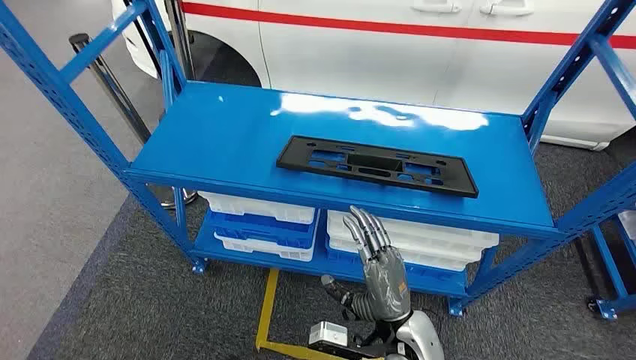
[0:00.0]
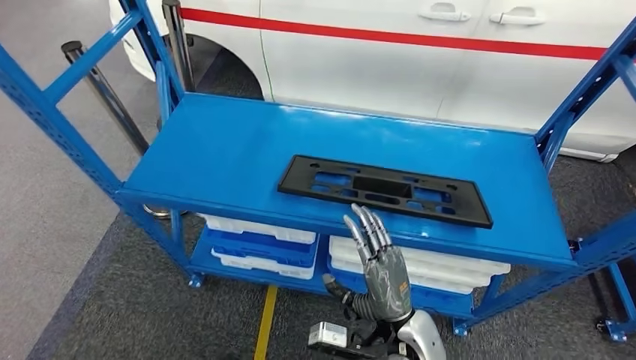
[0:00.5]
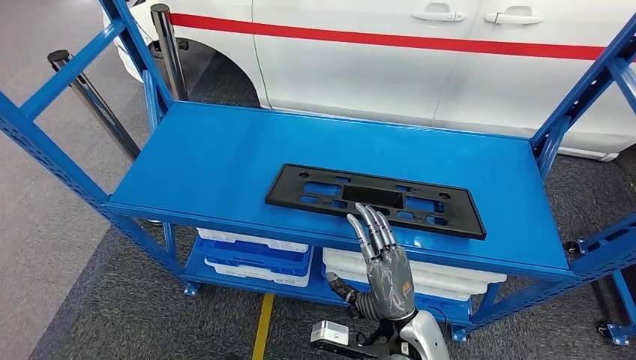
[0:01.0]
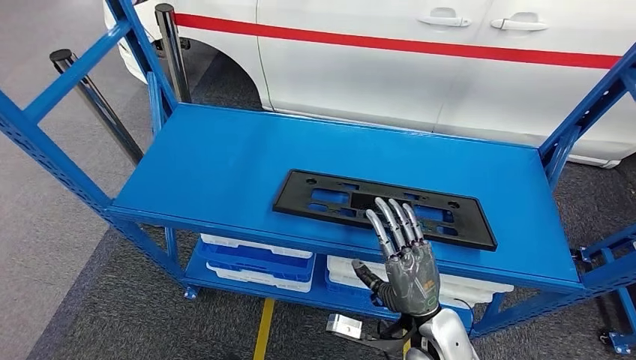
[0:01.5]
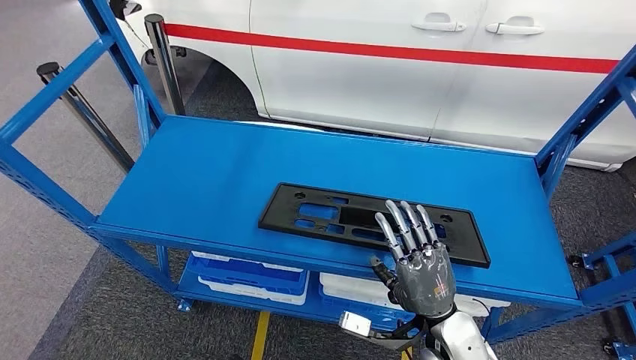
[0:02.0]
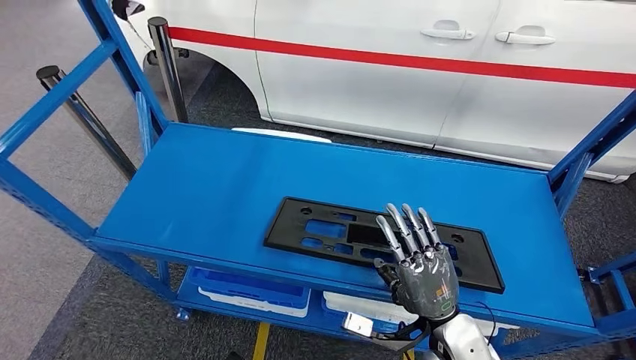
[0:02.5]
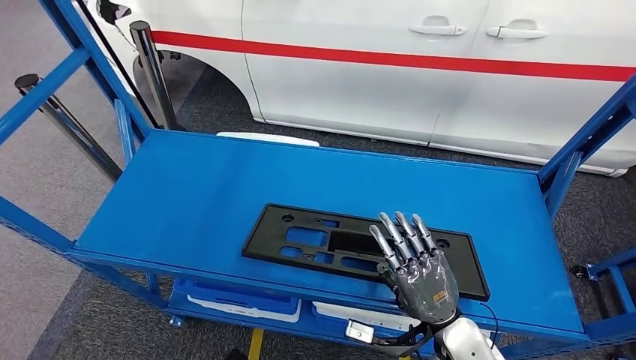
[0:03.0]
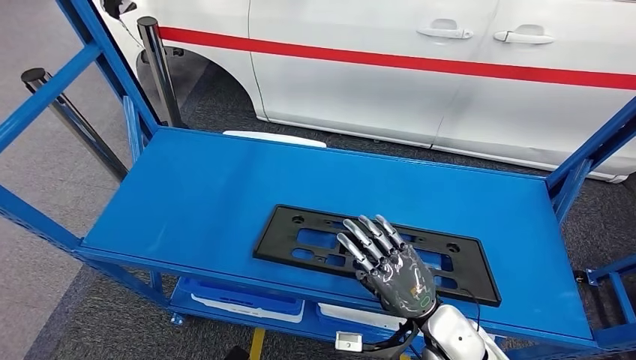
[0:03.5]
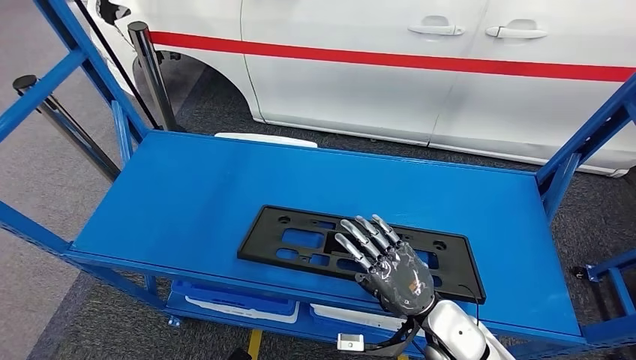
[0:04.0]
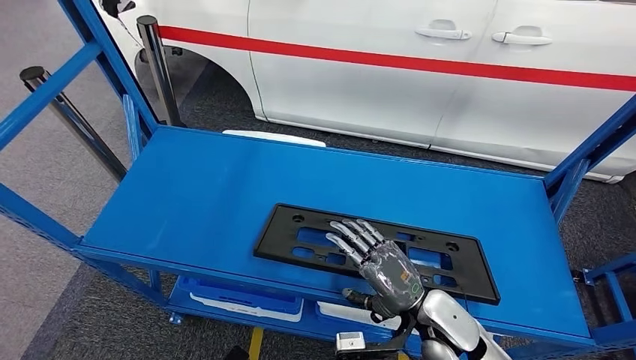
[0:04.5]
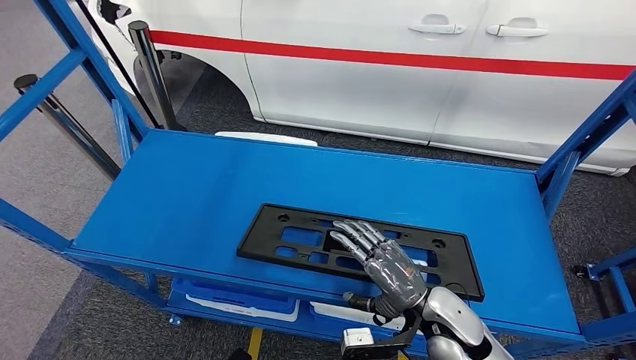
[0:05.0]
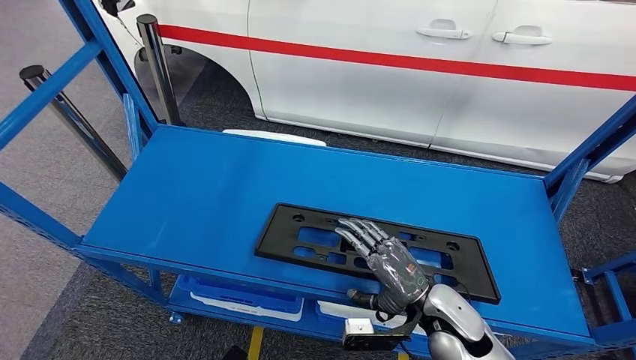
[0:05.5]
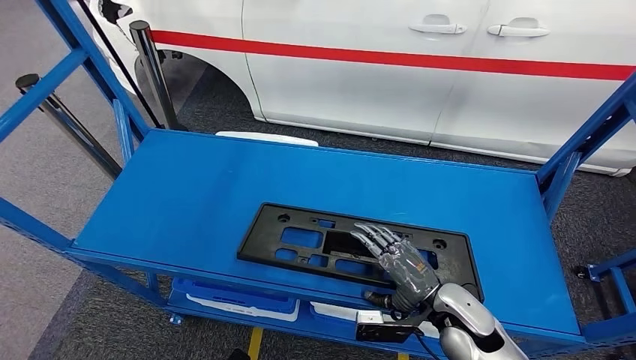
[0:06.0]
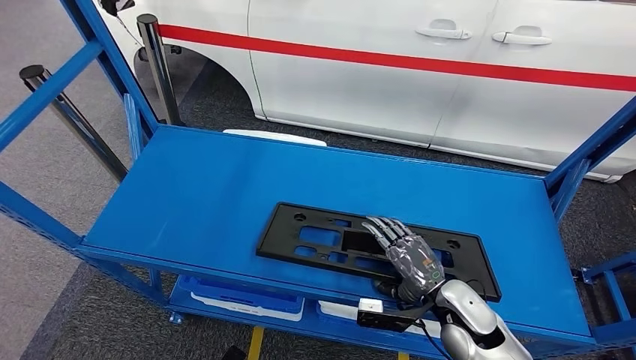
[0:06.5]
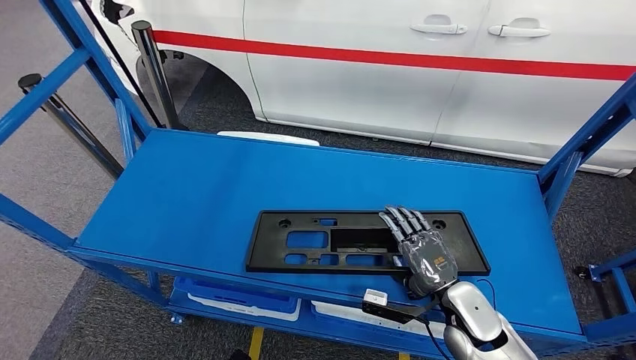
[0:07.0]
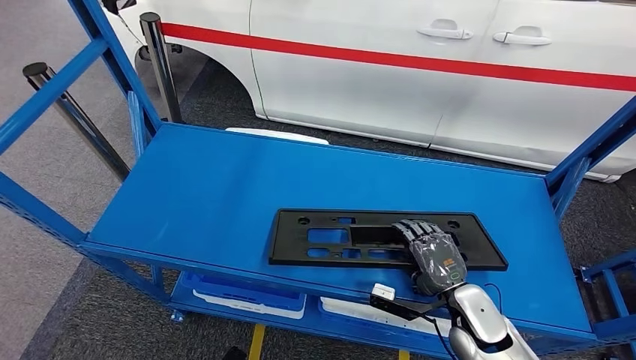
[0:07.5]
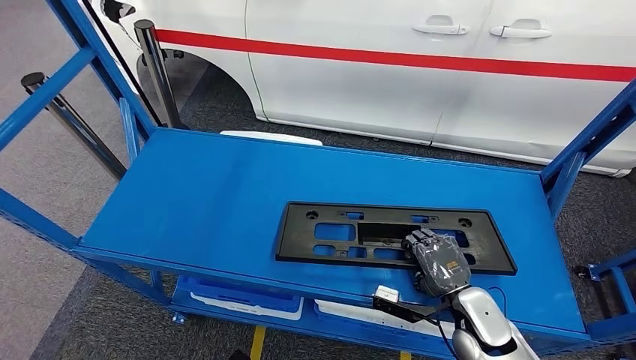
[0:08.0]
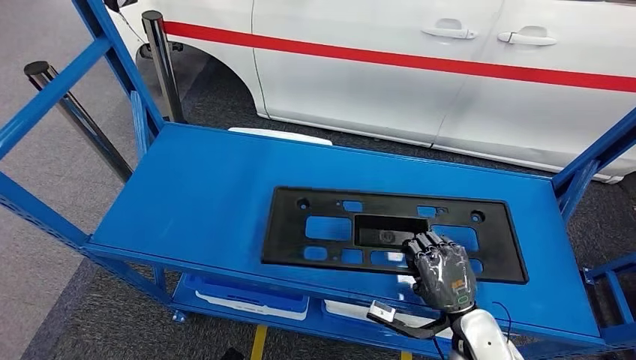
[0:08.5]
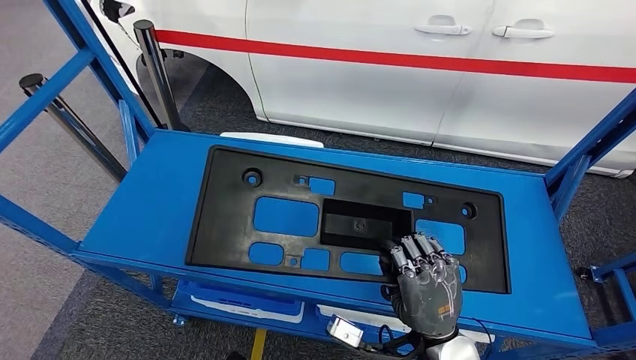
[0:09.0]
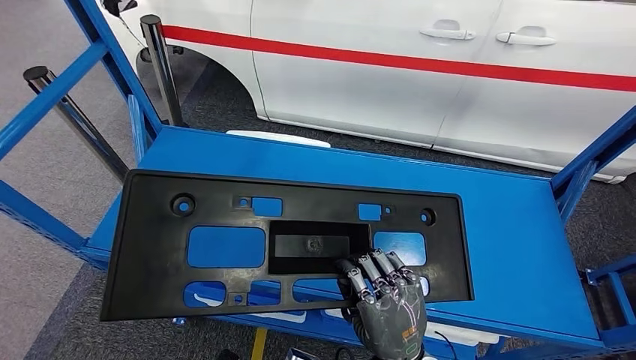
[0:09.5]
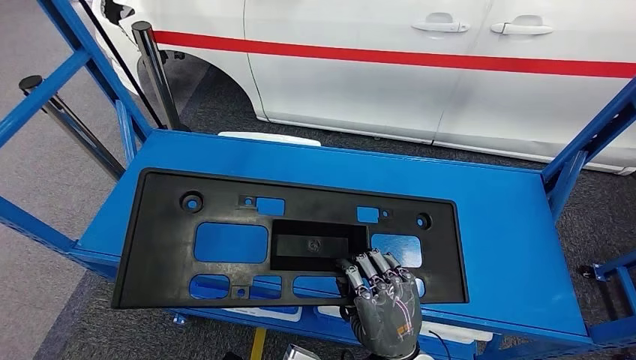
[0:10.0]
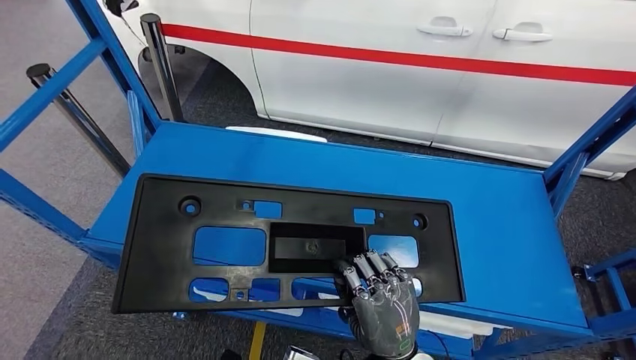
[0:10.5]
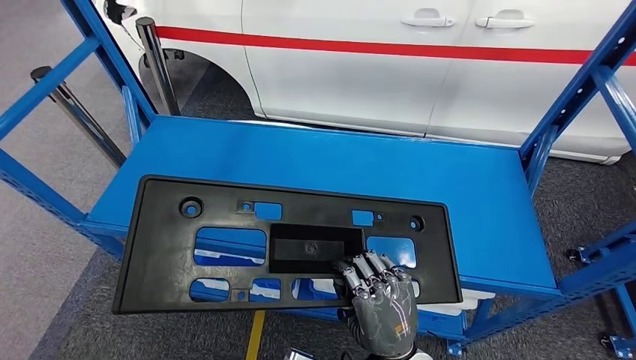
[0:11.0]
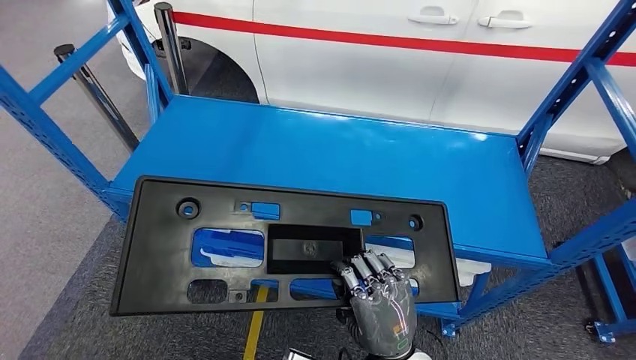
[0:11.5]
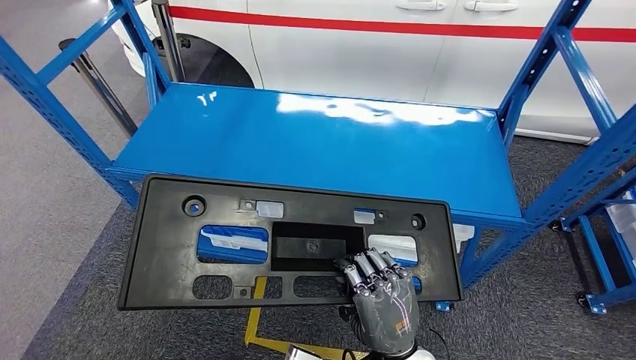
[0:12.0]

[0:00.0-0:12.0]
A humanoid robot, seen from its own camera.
0:06.0 to 0:08.0: The right hand is displaced to the right by roughly 5 cm.

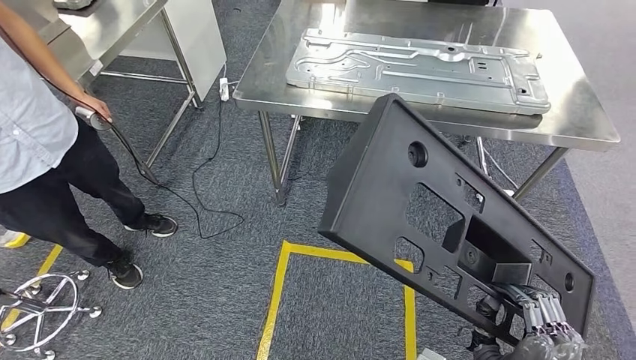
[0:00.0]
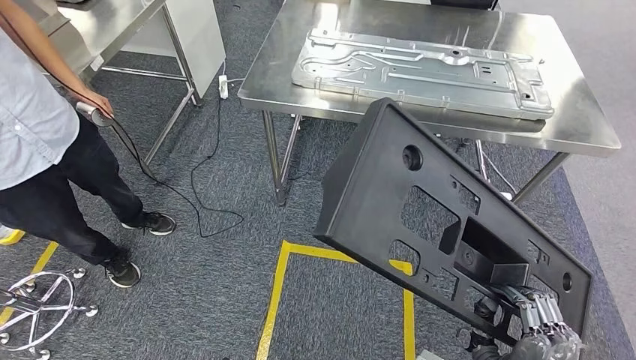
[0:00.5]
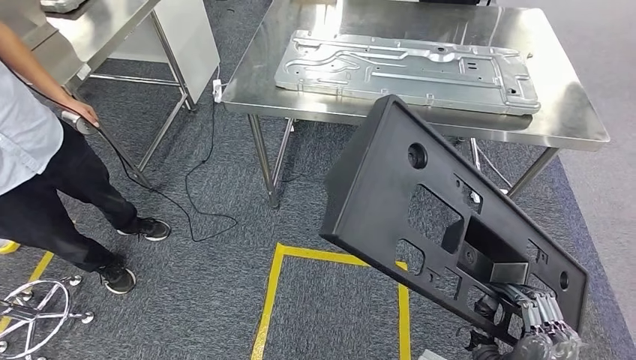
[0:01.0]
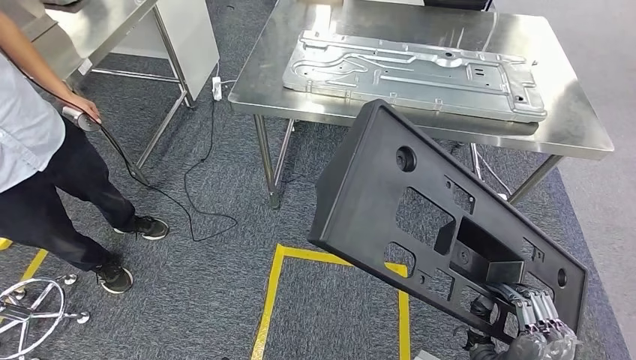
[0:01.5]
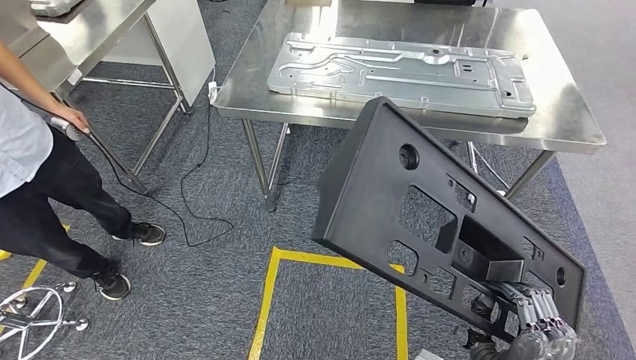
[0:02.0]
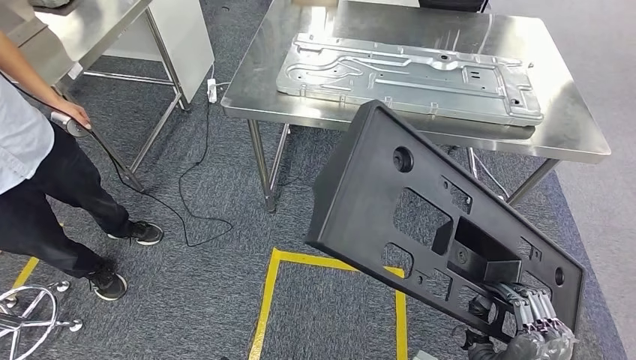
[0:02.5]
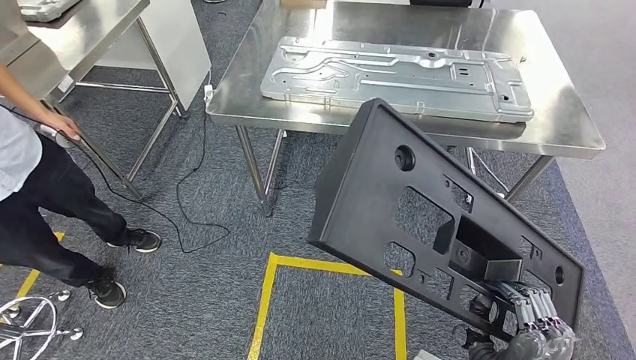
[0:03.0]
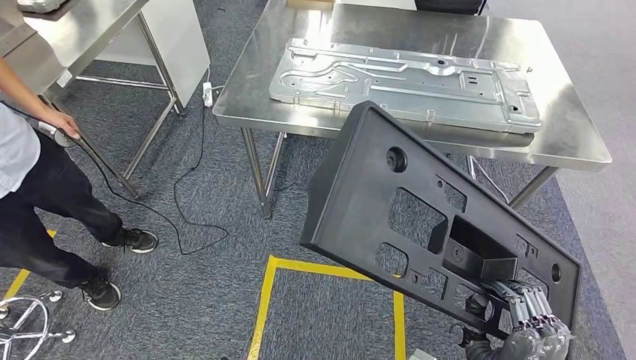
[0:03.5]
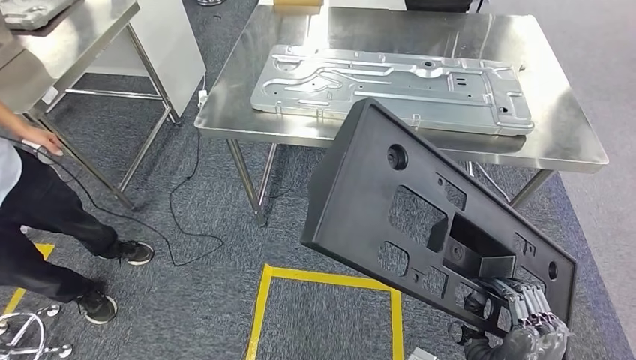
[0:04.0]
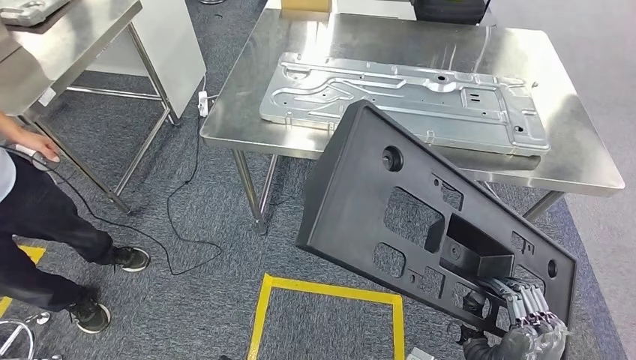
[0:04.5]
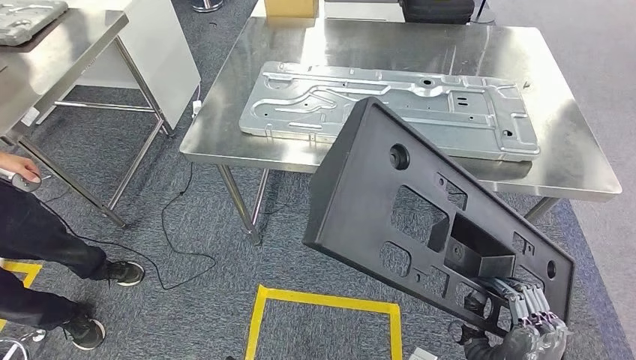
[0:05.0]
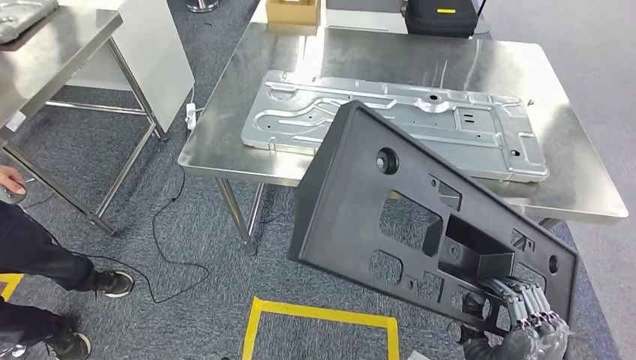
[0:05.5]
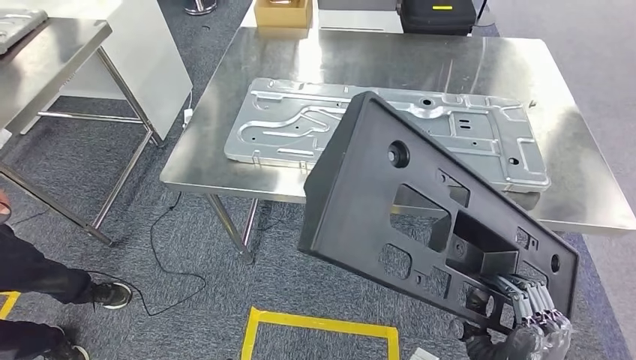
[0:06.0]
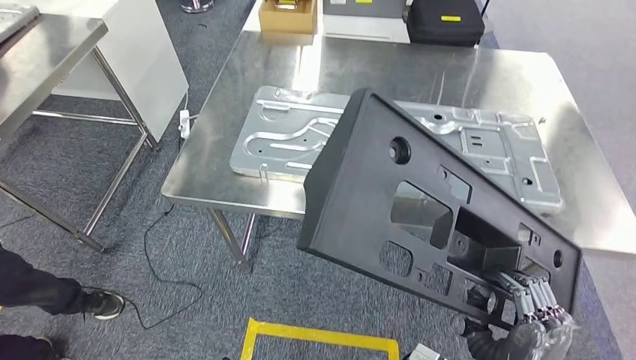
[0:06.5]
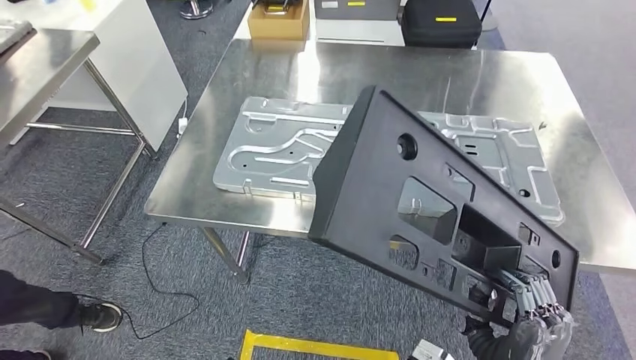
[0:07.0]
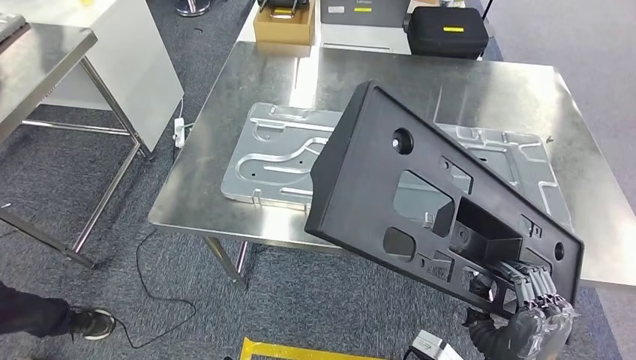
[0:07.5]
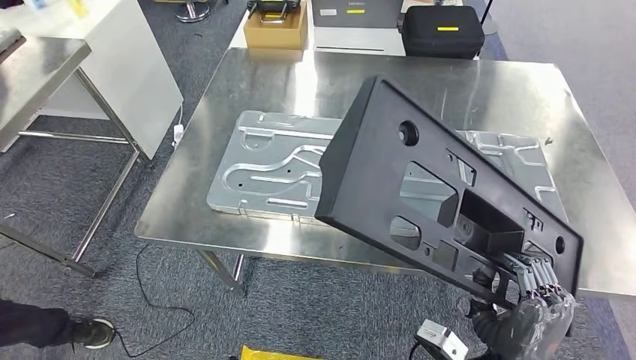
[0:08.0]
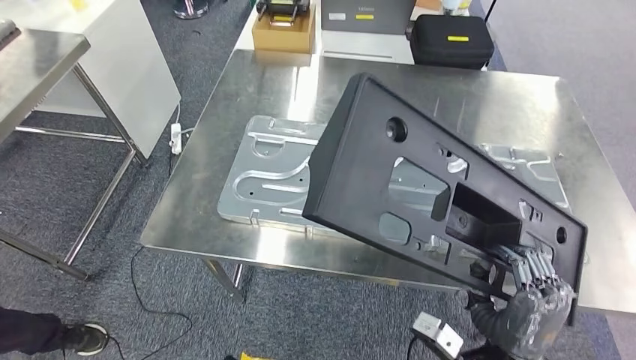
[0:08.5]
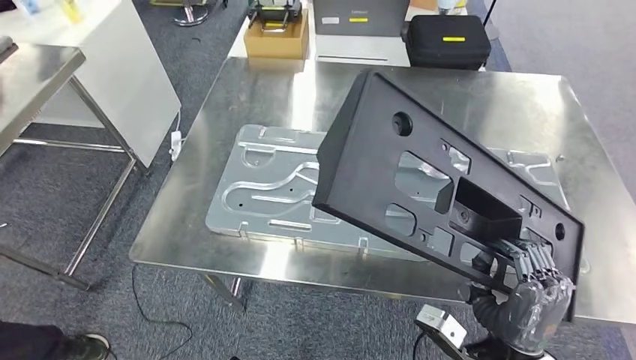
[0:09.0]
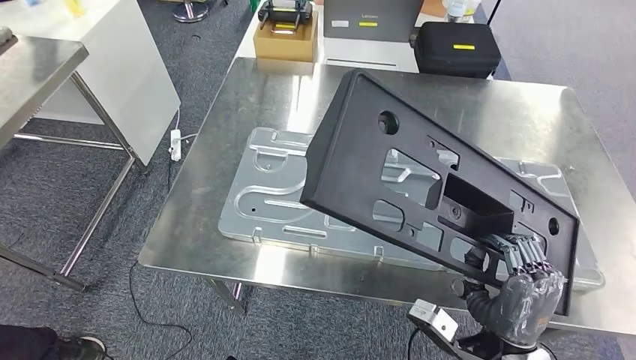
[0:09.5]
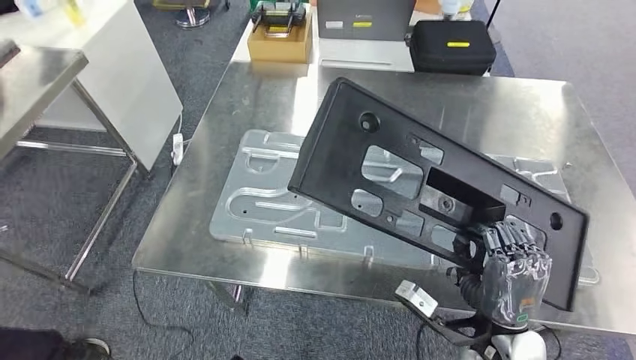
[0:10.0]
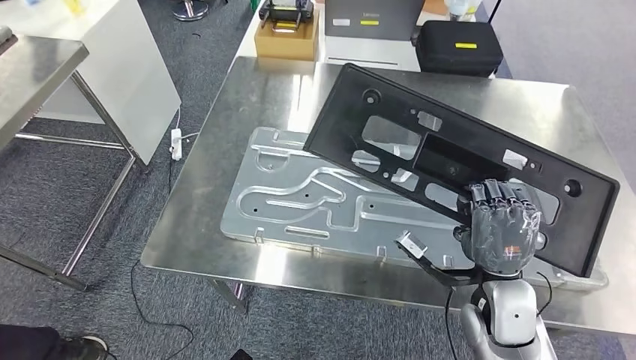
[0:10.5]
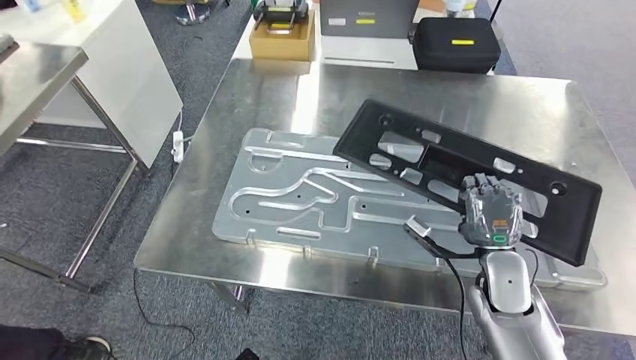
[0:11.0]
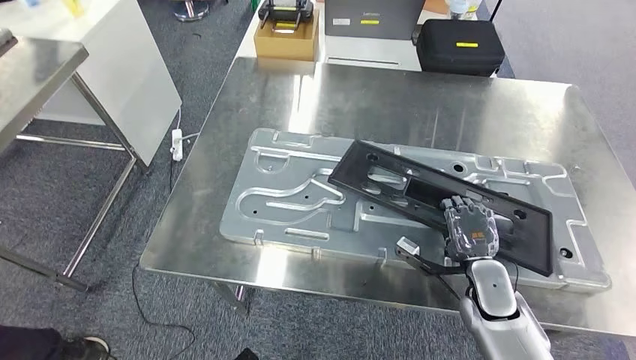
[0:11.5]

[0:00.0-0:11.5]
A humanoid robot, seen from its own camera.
Step, 0:00.0 to 0:04.0: Move the large material to the workbench.
